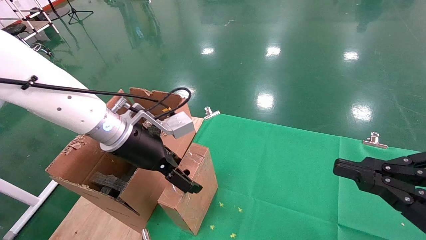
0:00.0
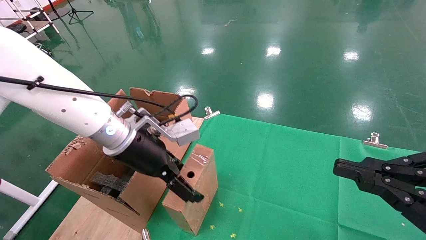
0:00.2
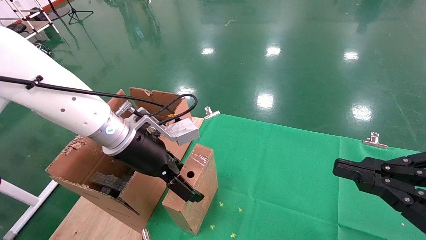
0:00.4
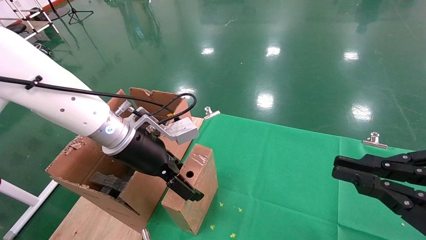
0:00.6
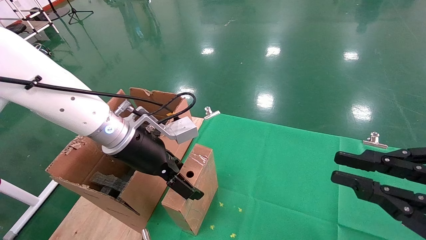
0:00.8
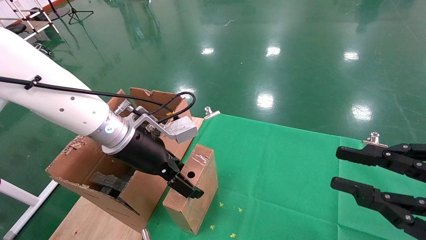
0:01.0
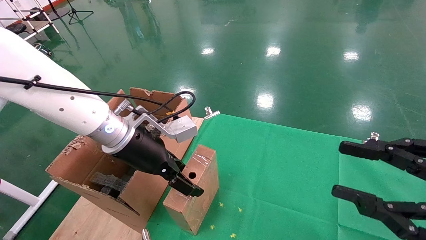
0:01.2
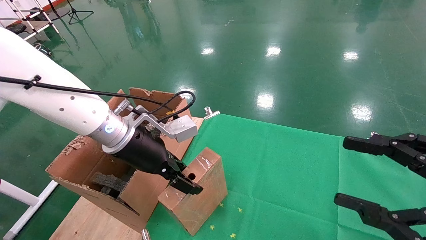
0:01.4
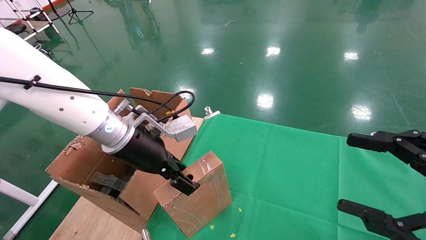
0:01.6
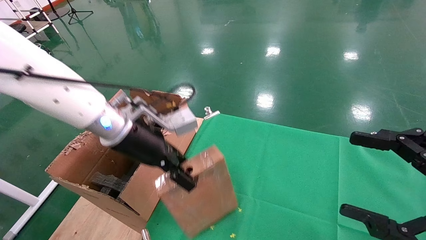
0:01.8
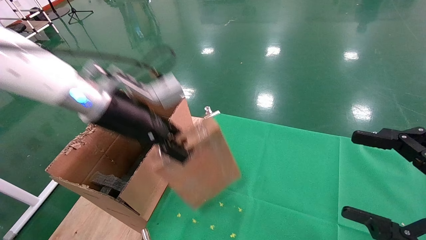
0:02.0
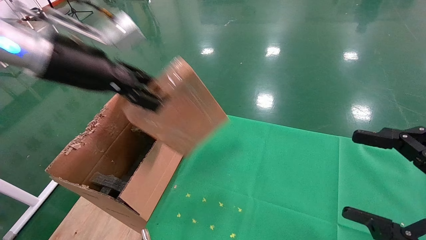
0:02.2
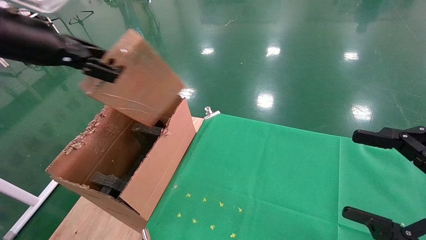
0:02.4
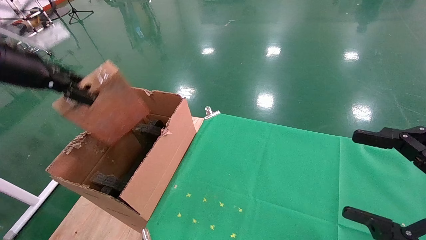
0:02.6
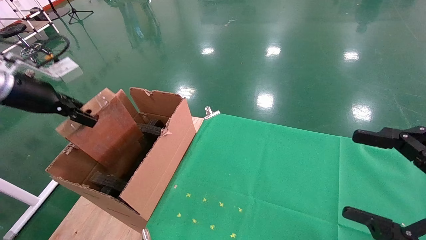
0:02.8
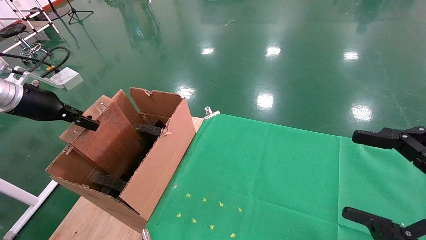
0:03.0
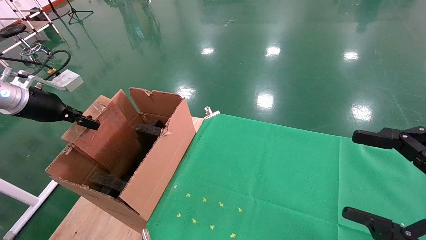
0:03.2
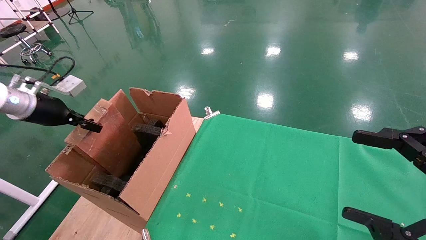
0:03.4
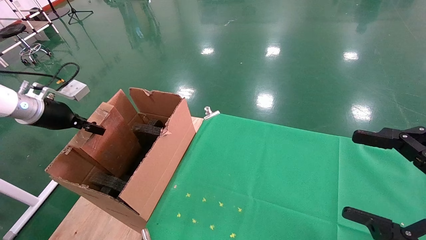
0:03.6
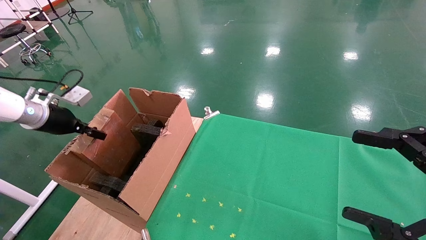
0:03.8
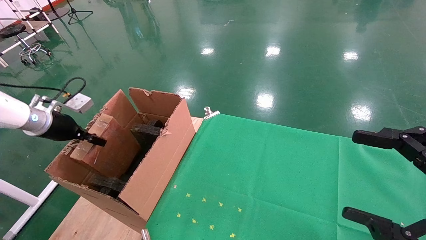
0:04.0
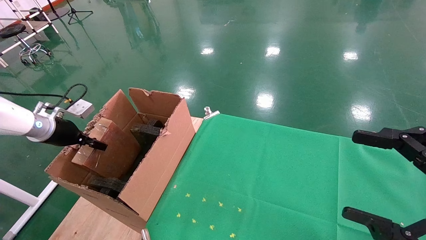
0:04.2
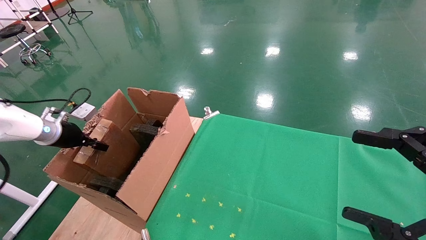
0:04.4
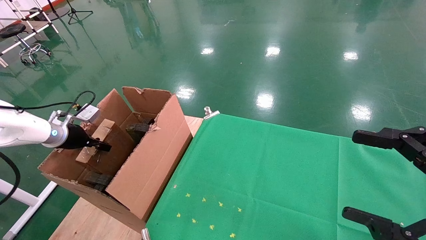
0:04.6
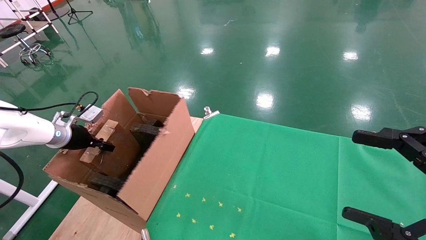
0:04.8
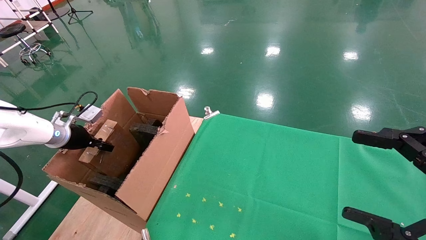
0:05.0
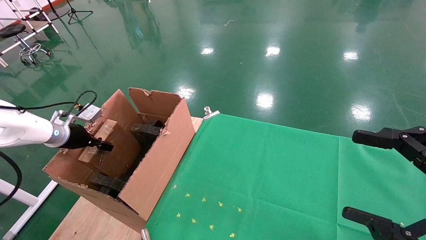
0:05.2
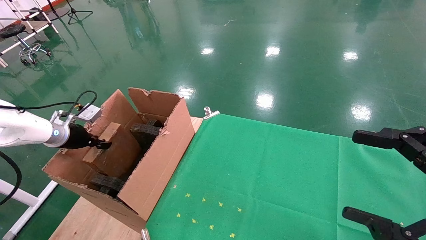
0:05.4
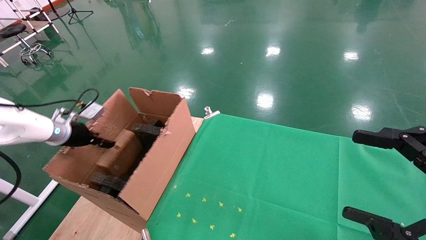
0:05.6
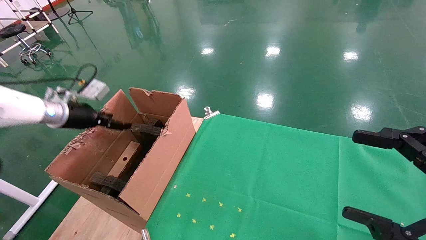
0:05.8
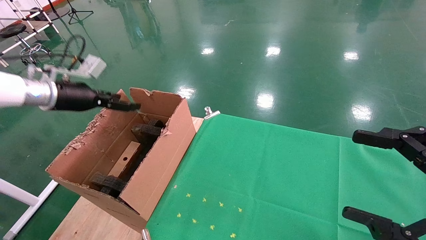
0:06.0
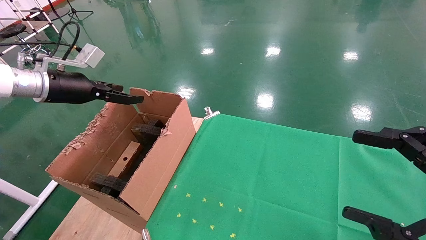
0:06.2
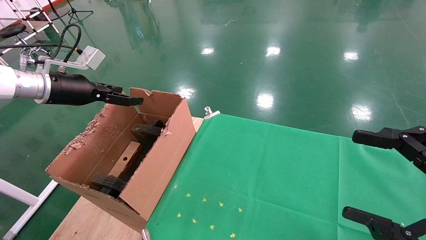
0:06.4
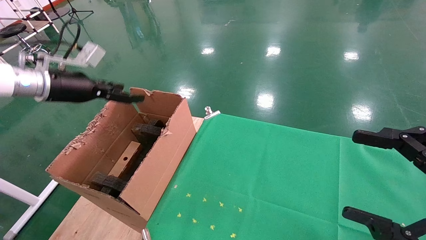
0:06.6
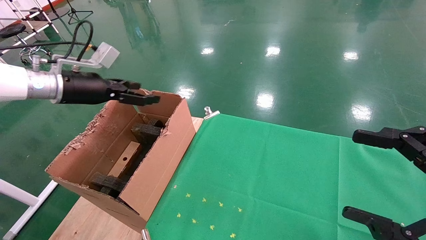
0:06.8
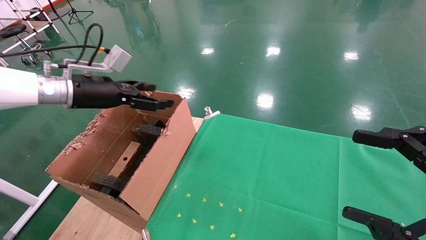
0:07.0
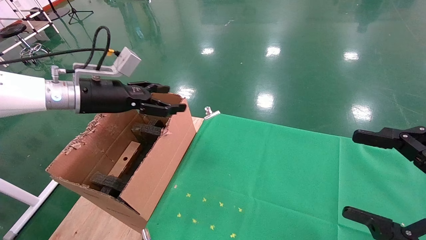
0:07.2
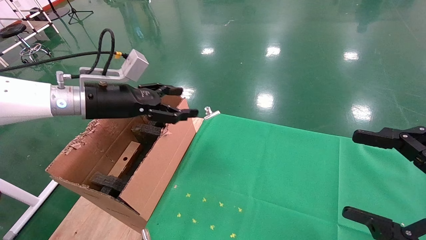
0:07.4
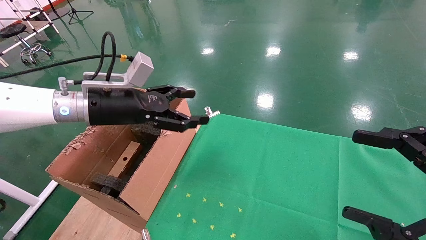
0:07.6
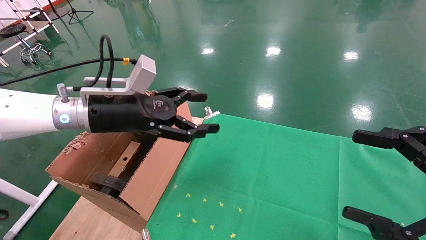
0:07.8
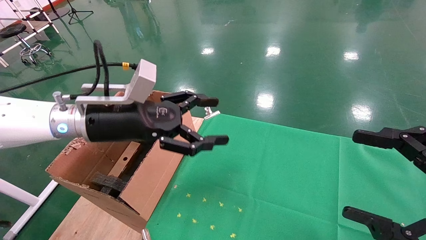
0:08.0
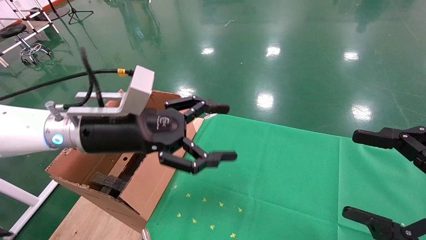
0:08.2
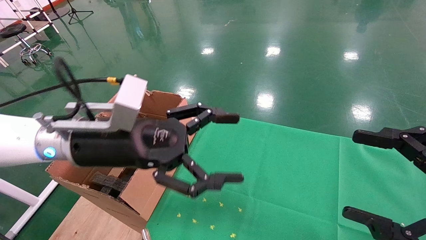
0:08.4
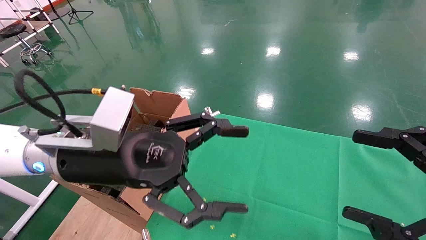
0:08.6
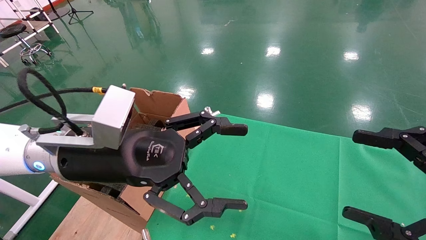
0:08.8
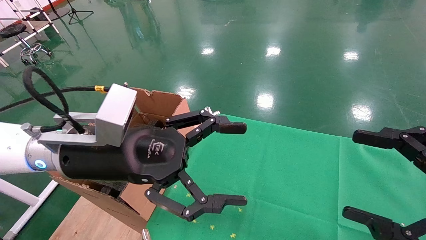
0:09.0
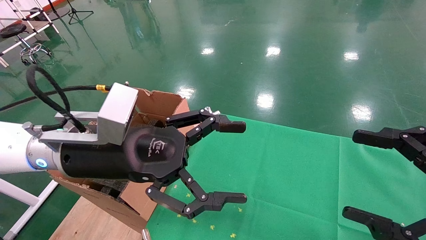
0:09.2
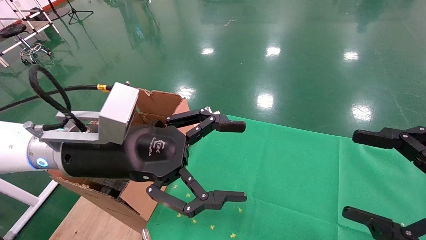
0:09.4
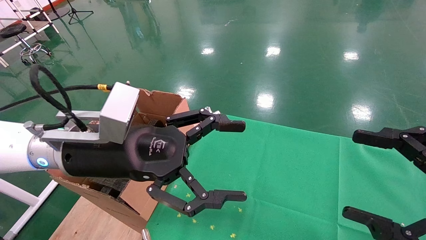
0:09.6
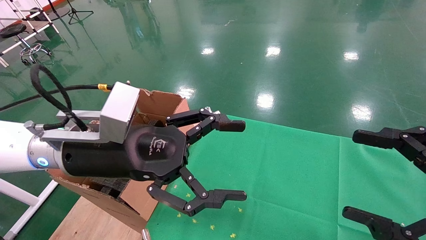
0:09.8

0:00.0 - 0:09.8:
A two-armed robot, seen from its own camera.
Task of the whole recording: using a robotic arm to pick up a cardboard box and palace it the carton.
Step, 0:01.8 - 0:06.0: Place the mouse and the power cord paper box into the container.
0:00.0 - 0:01.4: The left gripper closes. Meanwhile the right gripper opens its fingers.
0:01.4 - 0:02.8: The left gripper travels to the left by some 25 cm, and closes. The right gripper opens.
0:02.8 - 0:04.2: The left gripper heads downward and forward, covering approximately 15 cm.
0:04.2 - 0:05.6: The left gripper opens its fingers.
0:05.6 - 0:07.0: The left gripper moves to the right and upward, approximately 15 cm, and opens.
0:07.0 - 0:08.4: The left gripper goes about 20 cm to the right and backward.
0:08.4 - 0:09.8: The grippers stay close to where they were, moving slightly.

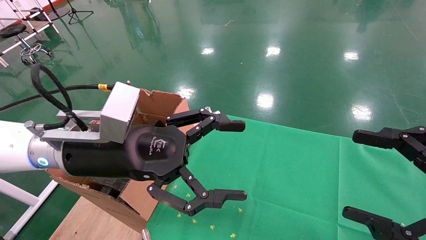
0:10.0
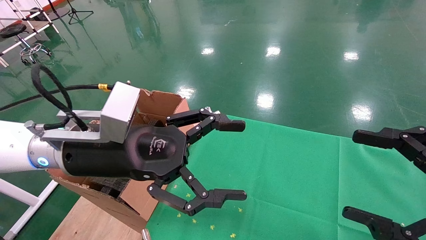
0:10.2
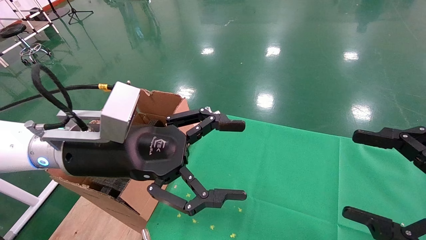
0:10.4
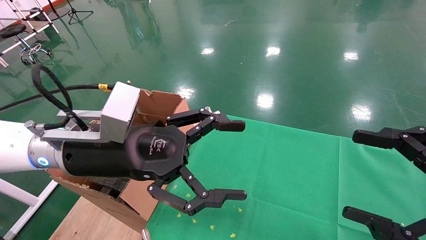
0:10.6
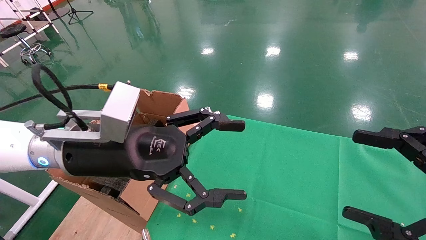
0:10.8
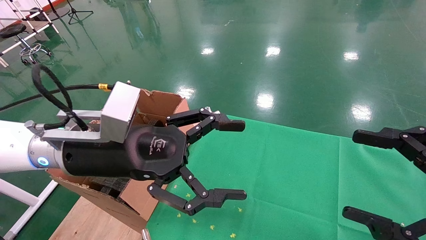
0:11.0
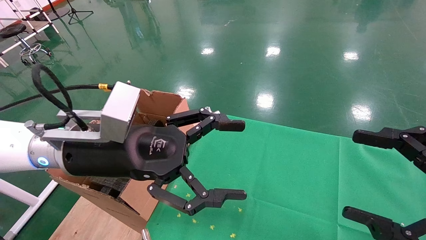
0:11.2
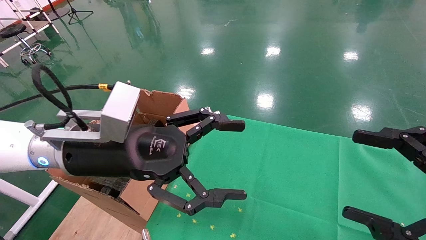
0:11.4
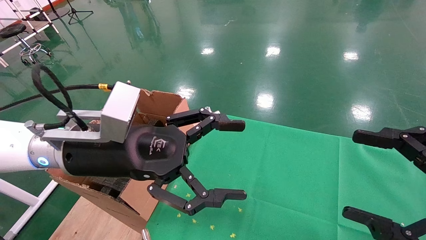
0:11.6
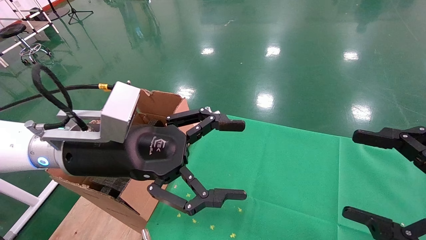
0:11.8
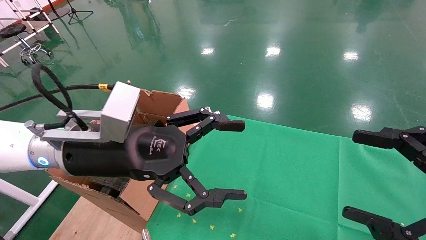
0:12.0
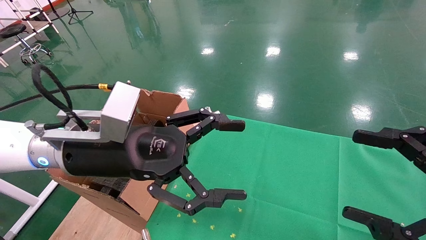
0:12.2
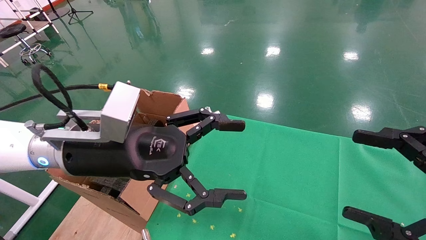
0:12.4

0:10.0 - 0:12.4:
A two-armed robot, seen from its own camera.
Task of the whole recording: using a robotic arm to pick up a cardboard box and palace it the carton.
0:10.0 - 0:12.4: Neither gripper changes place.

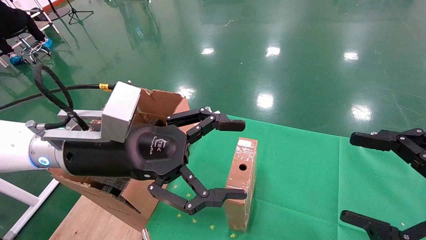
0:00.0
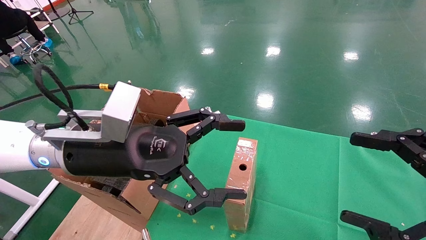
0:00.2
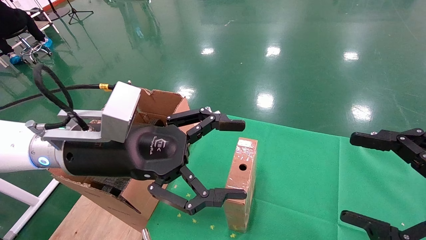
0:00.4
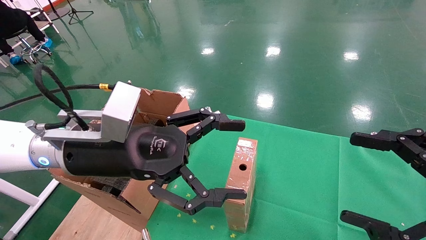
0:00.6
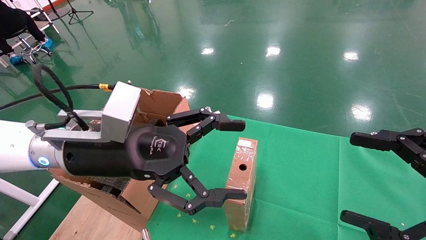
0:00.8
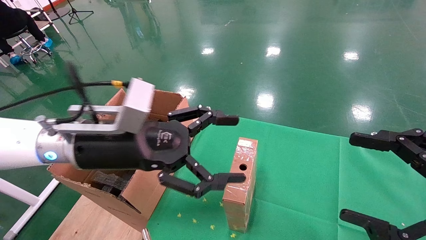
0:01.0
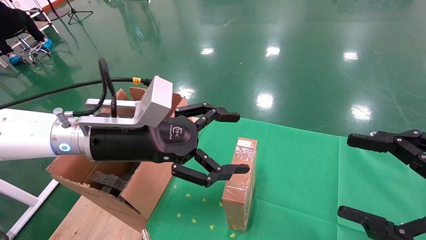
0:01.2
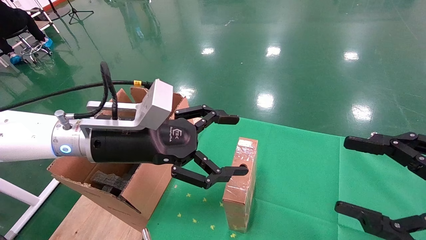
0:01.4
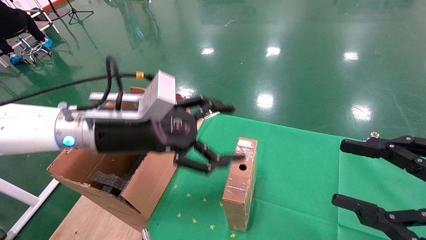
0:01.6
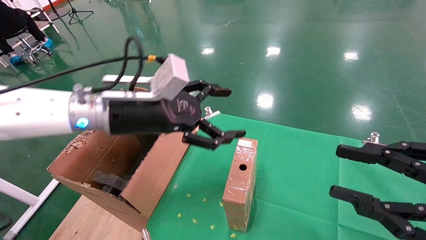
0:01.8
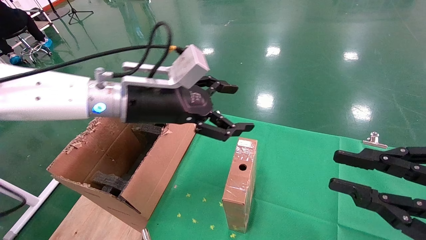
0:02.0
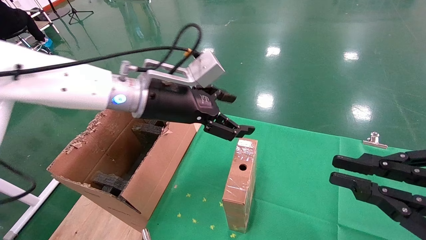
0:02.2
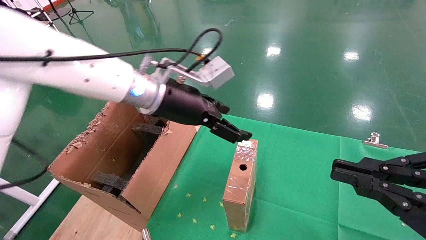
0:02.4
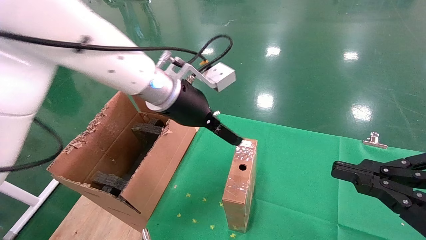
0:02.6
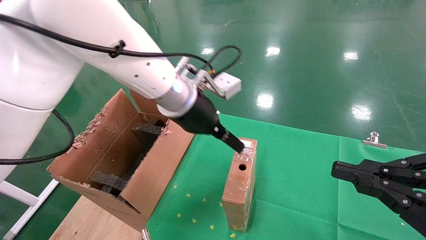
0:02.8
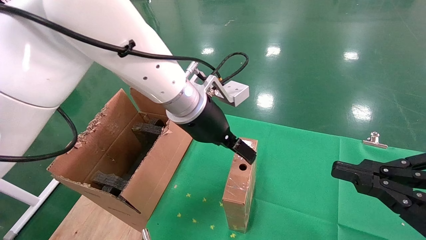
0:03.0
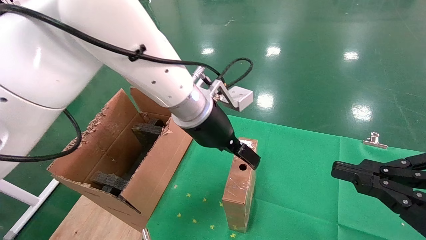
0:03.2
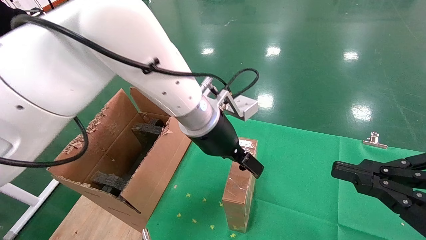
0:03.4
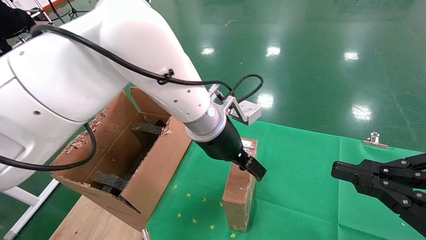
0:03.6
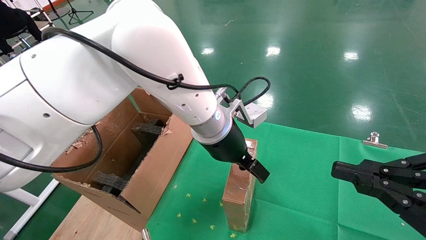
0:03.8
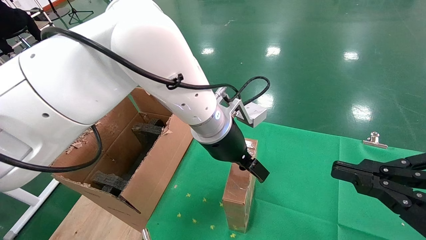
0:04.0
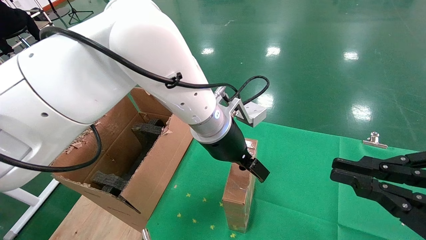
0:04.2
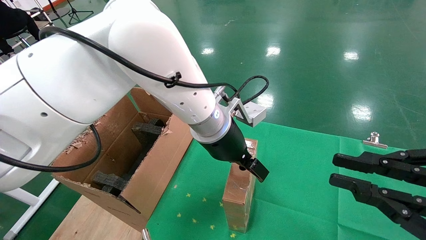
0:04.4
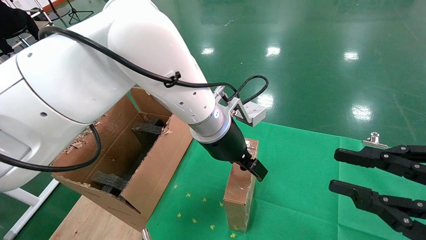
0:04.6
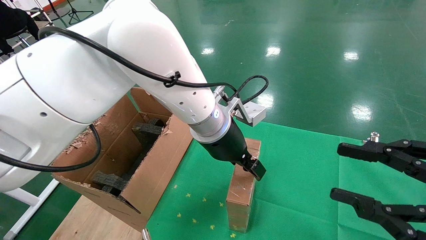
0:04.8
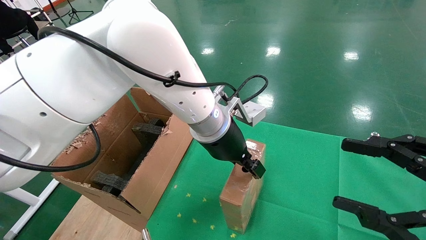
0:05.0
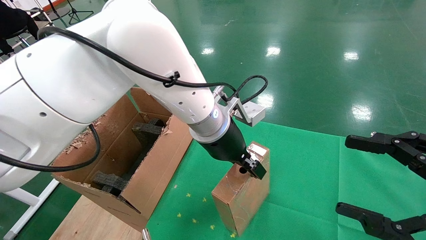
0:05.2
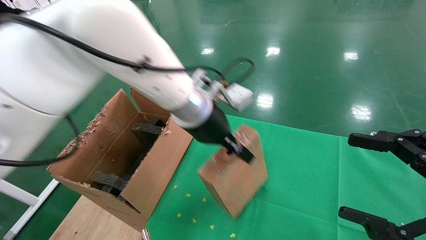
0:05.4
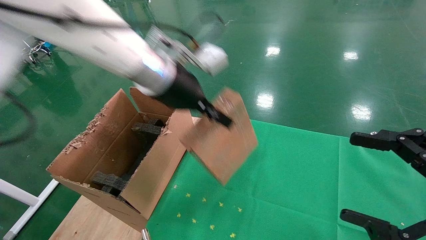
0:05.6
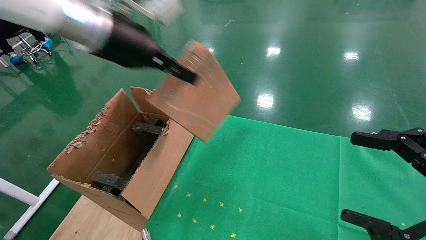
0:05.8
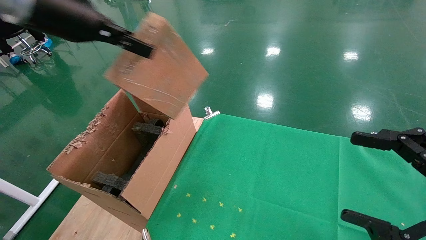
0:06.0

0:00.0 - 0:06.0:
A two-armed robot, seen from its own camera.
Task of the whole recording: using a robotic arm to pick up a cardboard box and palace it the carton.
Step, 0:01.2 - 0:05.0: Pick up the mouse and the power cord paper box.
0:00.0 - 0:01.6: The left gripper shifts by about 5 cm.
0:01.6 - 0:03.0: The left gripper moves to the right and forward, roughly 15 cm, while the right gripper closes up.
0:04.4 - 0:06.0: The left gripper moves to the left and upward, about 30 cm, and closes. The right gripper opens.
